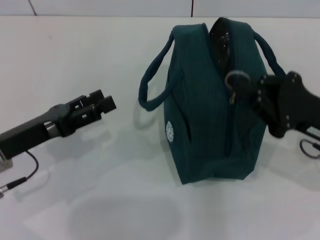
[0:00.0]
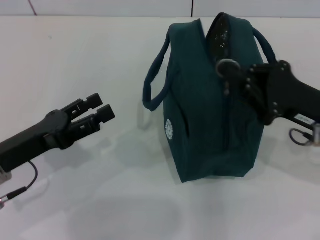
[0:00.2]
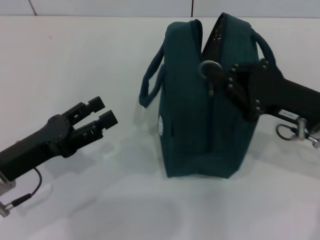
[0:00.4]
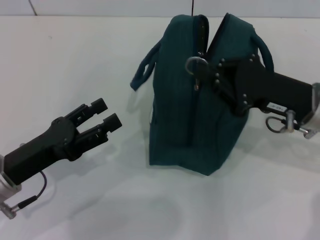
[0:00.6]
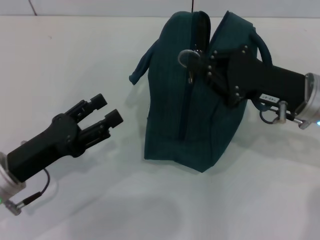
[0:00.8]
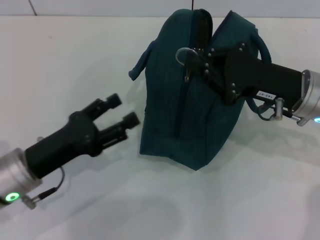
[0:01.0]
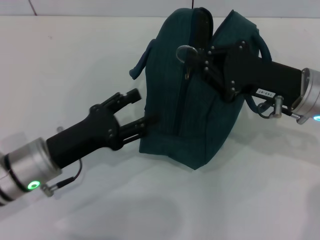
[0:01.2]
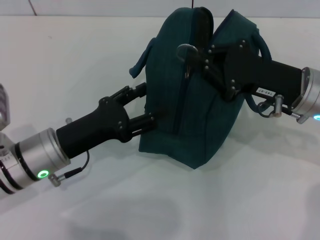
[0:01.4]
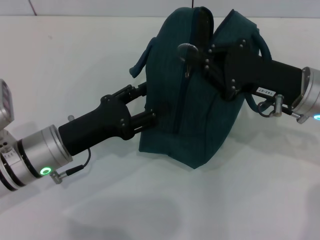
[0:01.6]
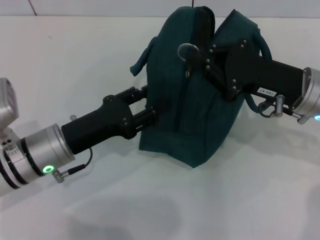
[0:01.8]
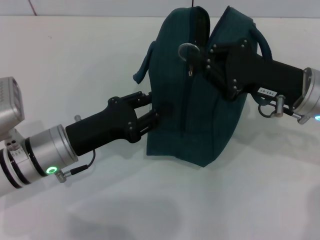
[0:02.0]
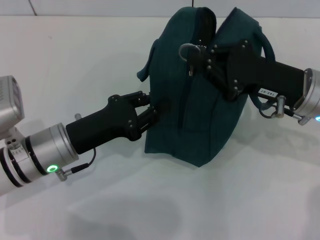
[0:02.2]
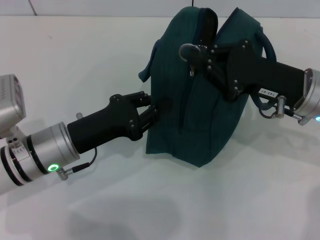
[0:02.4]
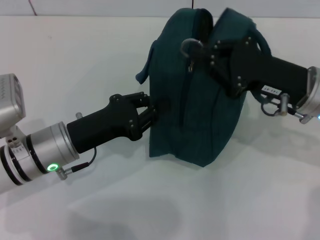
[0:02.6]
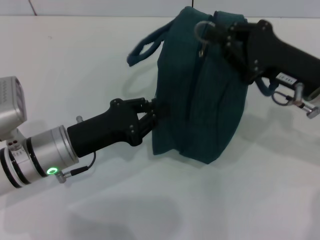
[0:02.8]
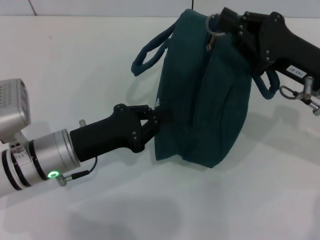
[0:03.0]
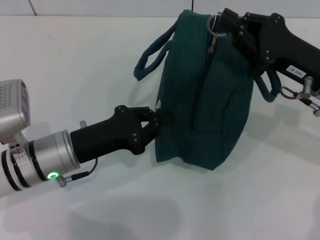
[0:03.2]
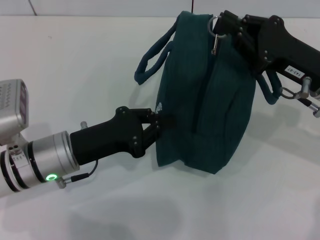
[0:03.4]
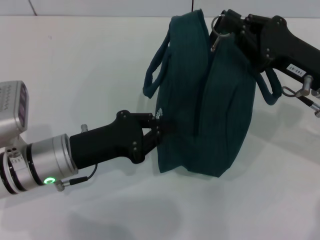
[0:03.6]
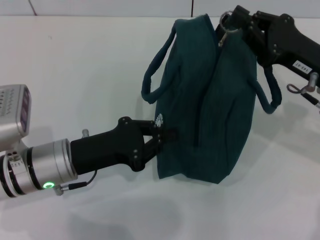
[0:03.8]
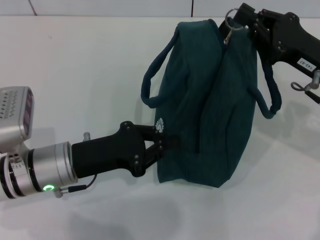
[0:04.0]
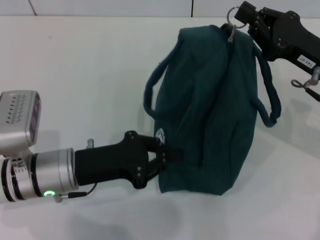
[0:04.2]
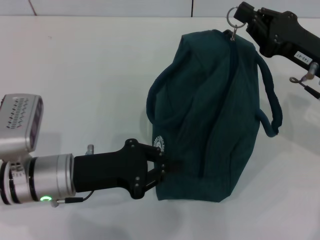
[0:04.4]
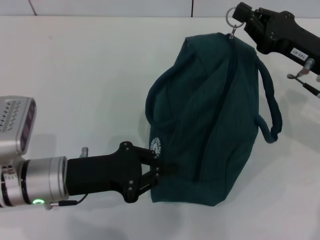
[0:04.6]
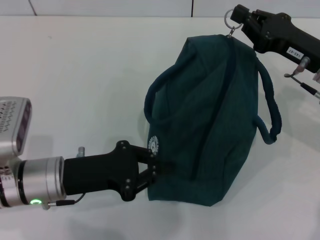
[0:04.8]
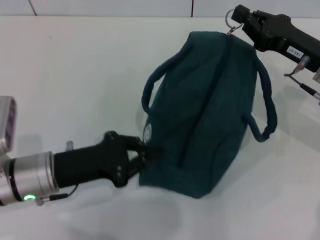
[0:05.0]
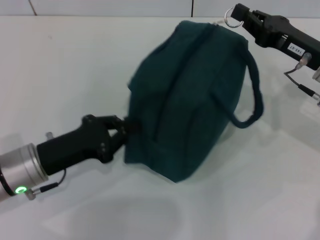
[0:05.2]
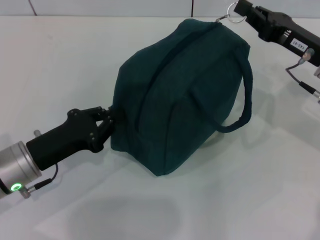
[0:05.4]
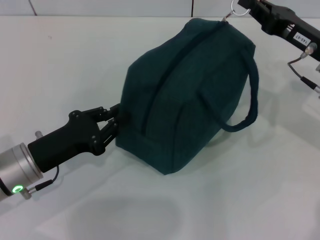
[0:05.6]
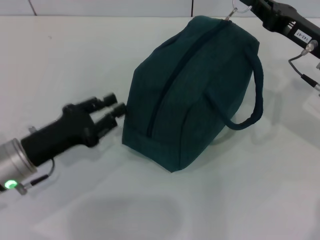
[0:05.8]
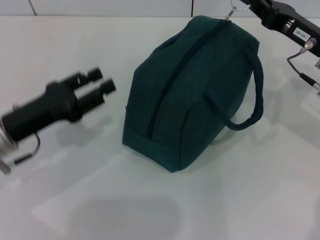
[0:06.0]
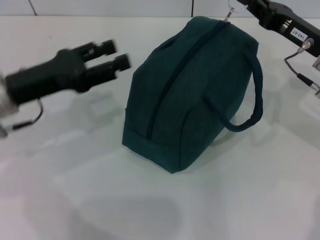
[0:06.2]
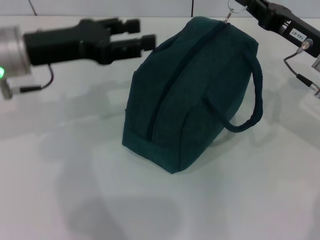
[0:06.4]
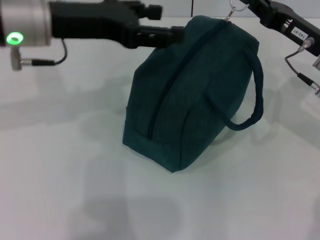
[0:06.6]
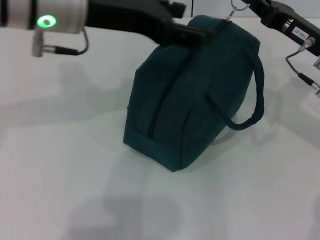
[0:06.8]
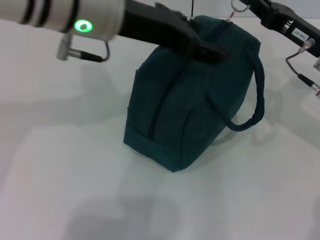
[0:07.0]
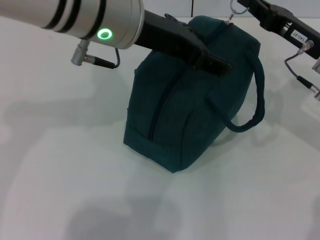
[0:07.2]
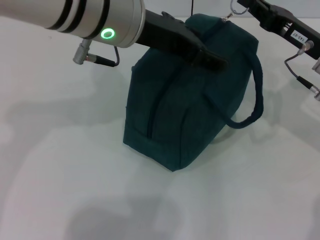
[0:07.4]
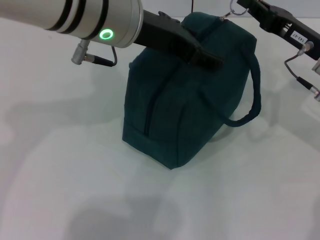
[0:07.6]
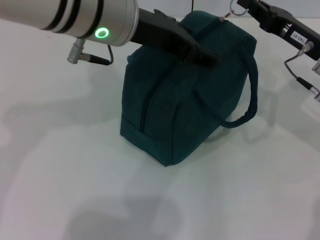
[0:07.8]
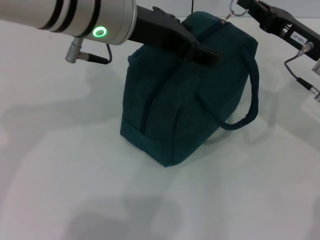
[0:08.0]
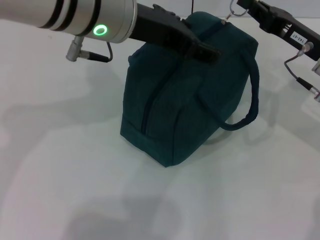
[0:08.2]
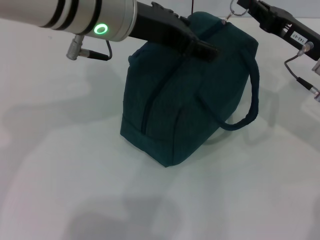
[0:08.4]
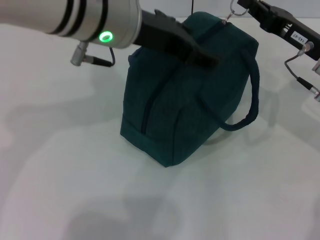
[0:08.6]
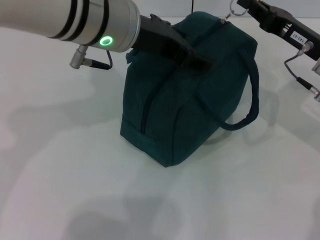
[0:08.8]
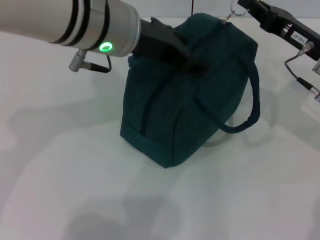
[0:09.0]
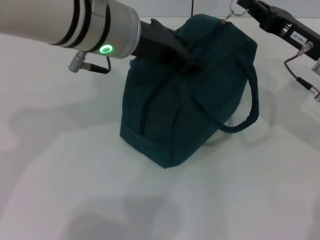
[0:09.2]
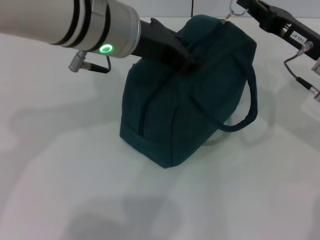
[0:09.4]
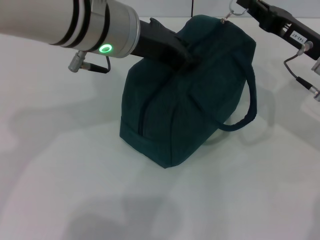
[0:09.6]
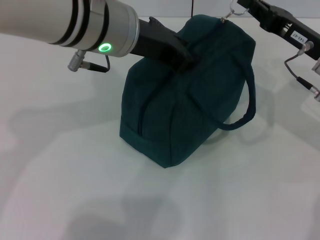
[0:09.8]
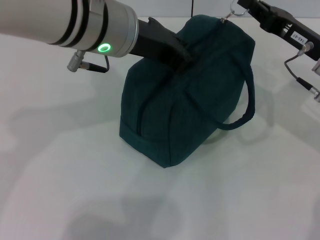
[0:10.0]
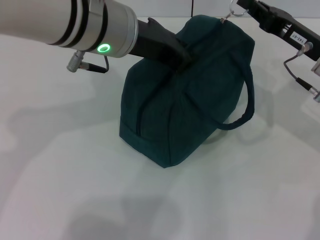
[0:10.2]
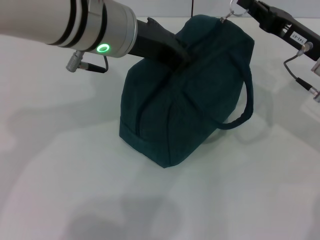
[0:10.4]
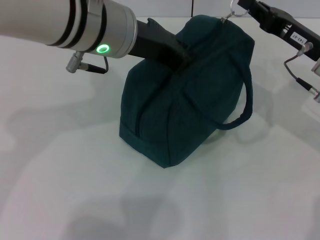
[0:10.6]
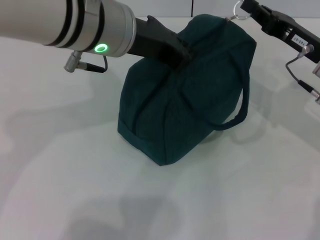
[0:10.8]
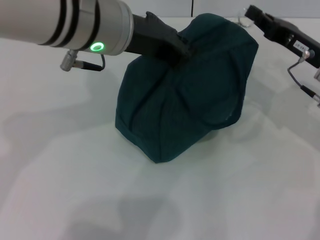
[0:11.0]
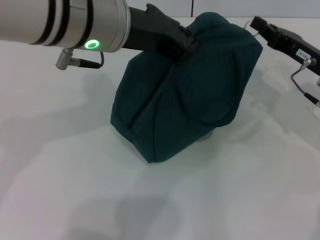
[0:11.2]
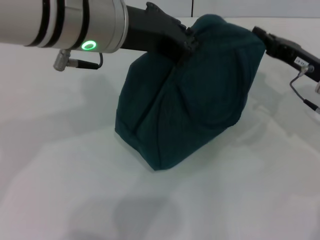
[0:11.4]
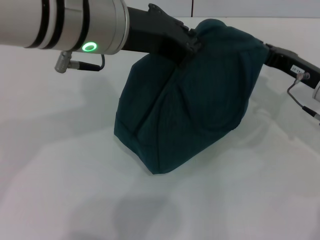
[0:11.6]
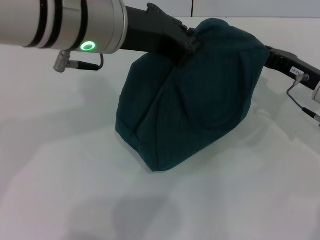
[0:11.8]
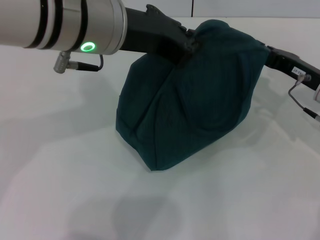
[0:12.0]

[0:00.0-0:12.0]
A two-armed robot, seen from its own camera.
0:00.0 to 0:01.6: The left gripper moves to the right, about 5 cm; the right gripper heads forward and to the left, covering roughly 10 cm.
0:01.6 to 0:03.0: The left gripper closes up.
0:04.4 to 0:06.0: The left gripper travels to the left by roughly 5 cm, and opens.
0:06.0 to 0:07.6: The left gripper is displaced upward, to the right and forward by roughly 25 cm, and opens its fingers.
0:07.6 to 0:09.0: The grippers move only a little.
0:09.0 to 0:10.4: The left gripper closes up.
0:10.4 to 0:12.0: The right gripper moves some 5 cm.

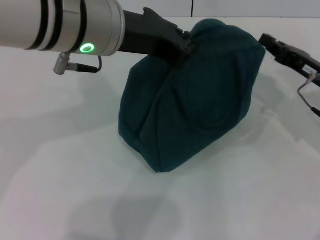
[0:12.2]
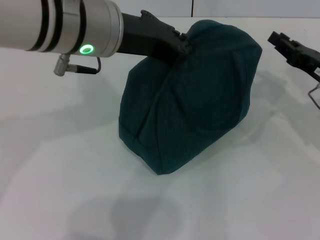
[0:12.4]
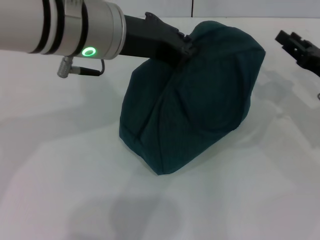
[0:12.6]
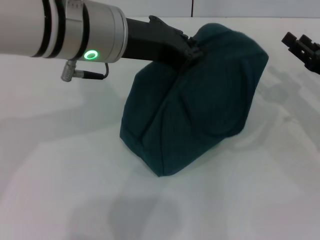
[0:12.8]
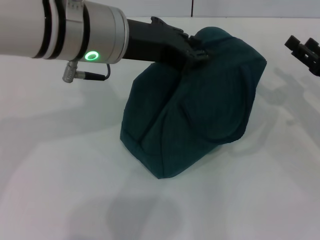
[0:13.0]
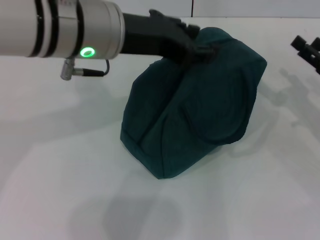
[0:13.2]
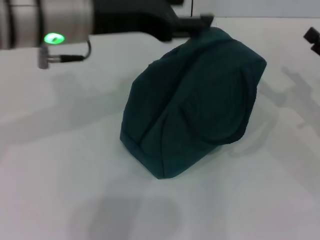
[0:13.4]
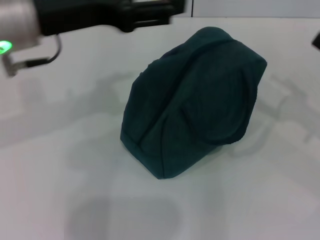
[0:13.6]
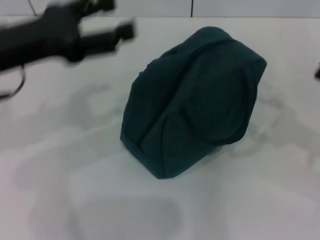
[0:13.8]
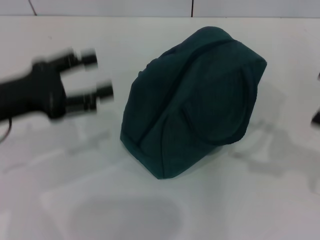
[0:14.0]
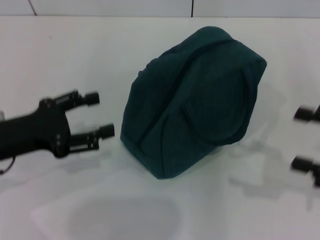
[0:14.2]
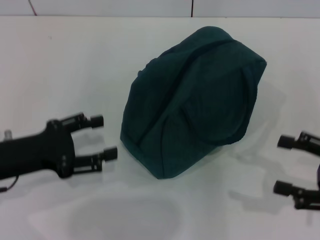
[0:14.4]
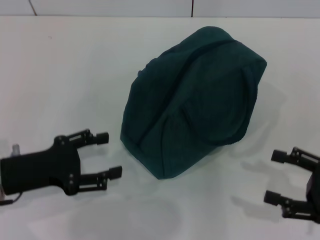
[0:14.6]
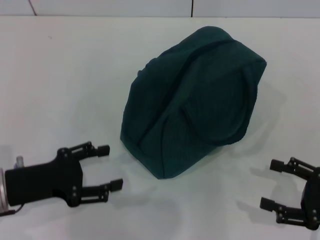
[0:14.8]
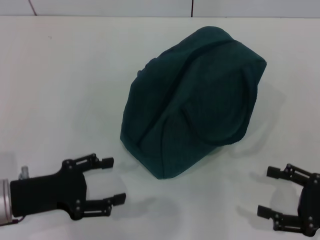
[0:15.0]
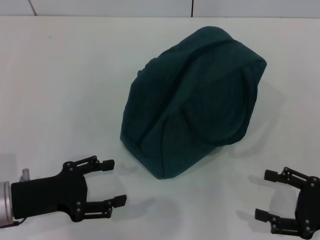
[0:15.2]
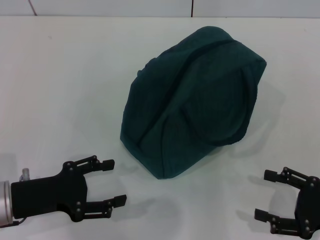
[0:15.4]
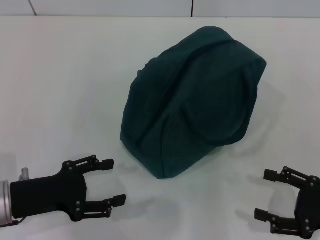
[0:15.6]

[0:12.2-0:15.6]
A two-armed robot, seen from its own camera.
Step, 0:12.4 to 0:13.2: Hold the lunch bag with your left hand.
0:12.2 to 0:13.8: The left gripper is displaced to the left by roughly 15 cm, and opens up, while the right gripper goes roughly 15 cm backward, to the right and upward, and opens its fingers.
0:13.8 to 0:15.6: Both grippers move downward and backward, some 15 cm.

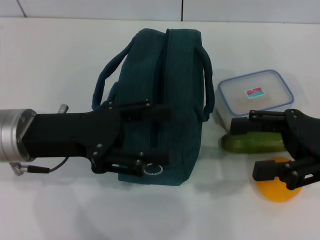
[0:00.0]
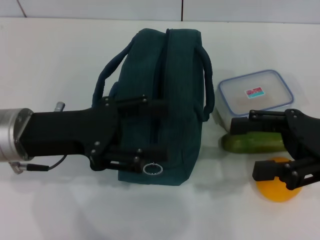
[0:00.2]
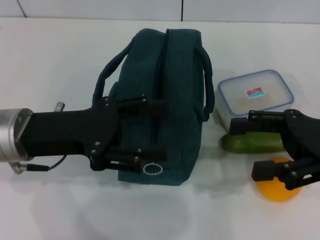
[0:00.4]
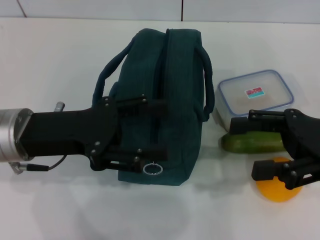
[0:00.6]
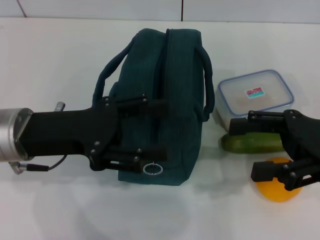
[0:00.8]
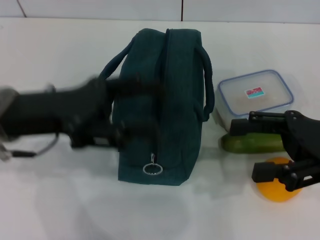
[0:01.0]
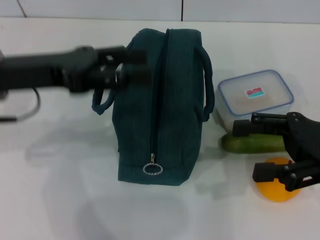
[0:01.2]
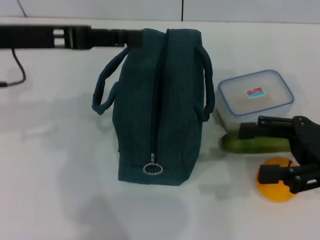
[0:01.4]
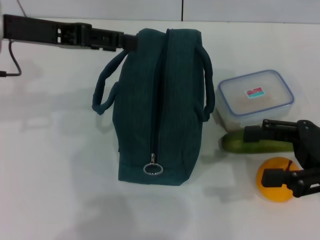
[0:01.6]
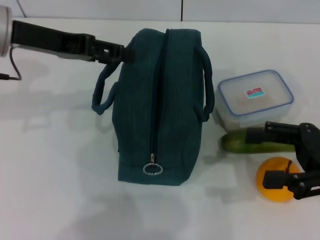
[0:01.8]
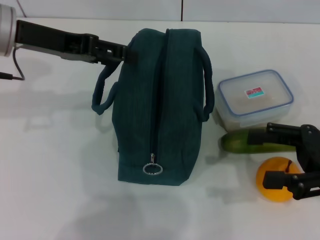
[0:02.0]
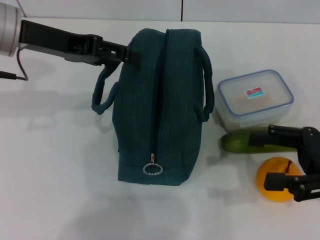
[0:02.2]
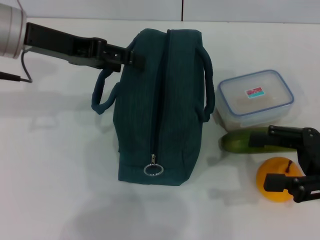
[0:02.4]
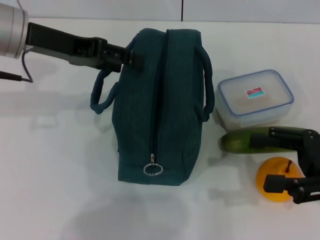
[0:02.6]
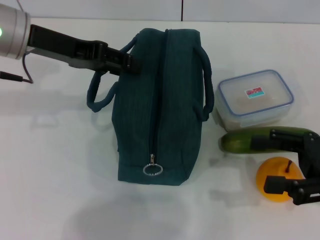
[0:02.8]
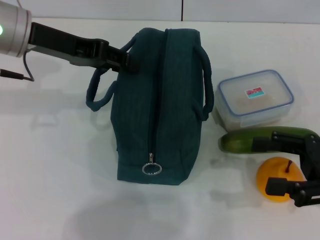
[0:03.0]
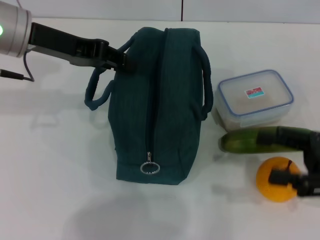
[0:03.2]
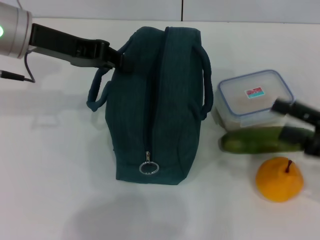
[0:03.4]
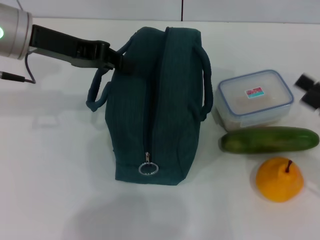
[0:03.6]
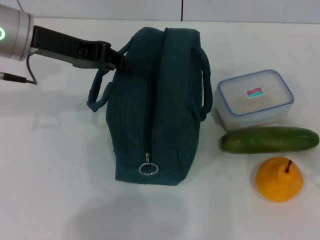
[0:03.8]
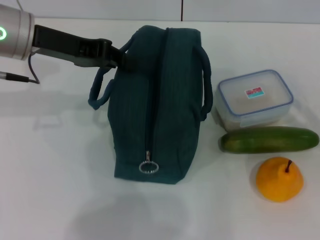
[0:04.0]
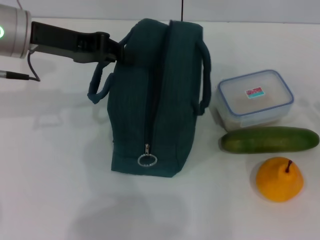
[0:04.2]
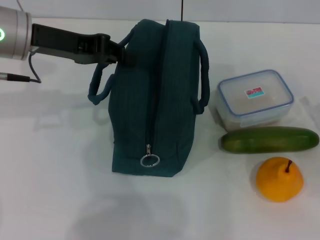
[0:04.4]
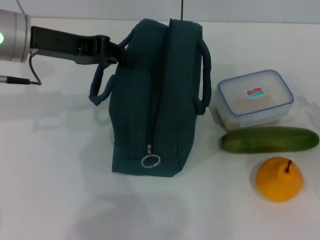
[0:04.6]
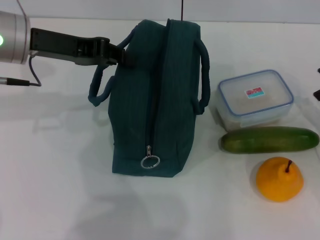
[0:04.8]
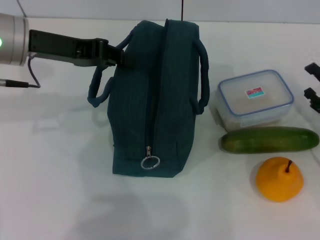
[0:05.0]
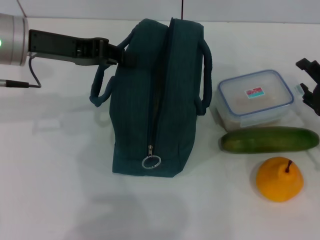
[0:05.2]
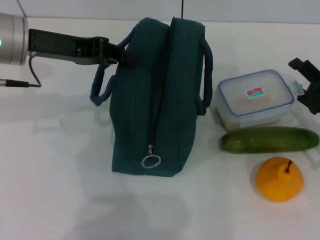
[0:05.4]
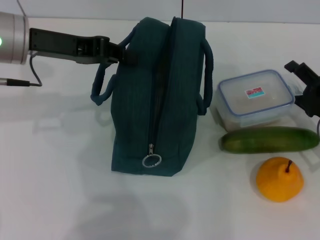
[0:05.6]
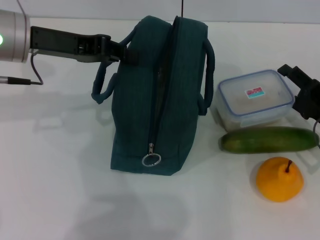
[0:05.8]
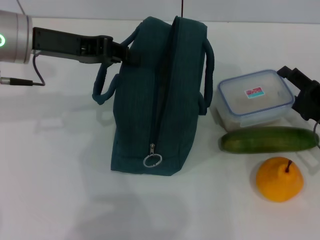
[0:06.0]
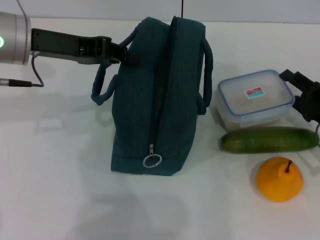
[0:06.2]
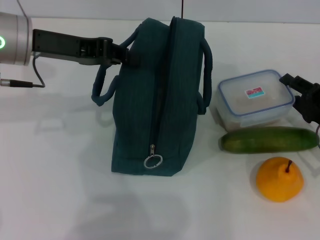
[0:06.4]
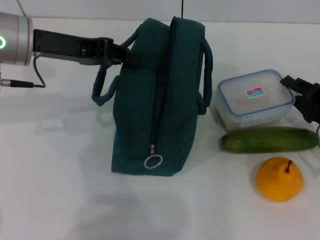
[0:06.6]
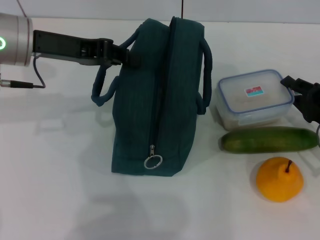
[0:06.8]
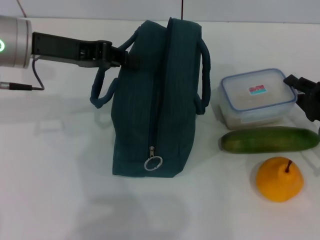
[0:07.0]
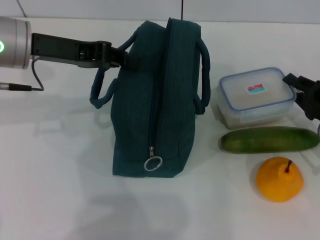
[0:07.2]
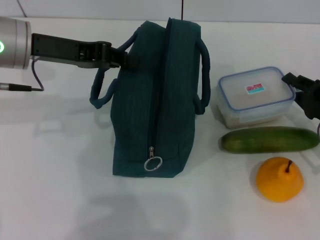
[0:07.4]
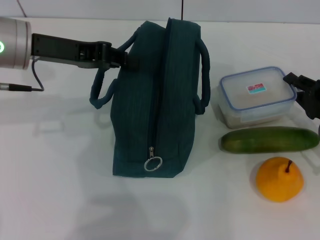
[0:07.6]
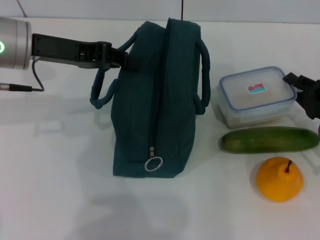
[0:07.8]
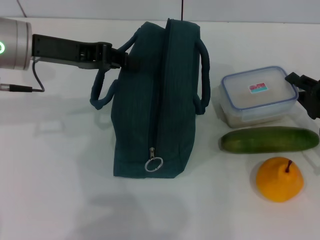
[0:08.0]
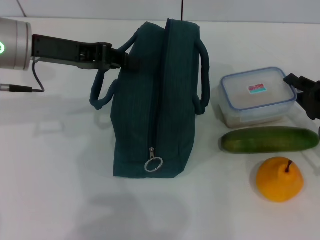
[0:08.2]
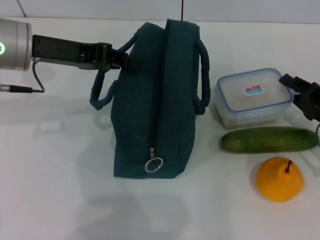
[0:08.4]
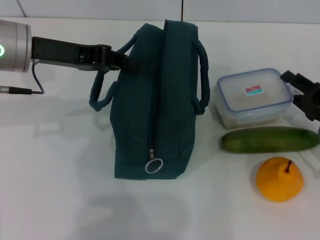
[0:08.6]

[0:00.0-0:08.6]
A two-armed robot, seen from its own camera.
Step, 0:00.0 to 0:03.8: Hold the lunch bag with your left hand.
0:00.0 to 0:01.4: The left gripper heads upward and forward, covering some 10 cm.
0:02.8 to 0:04.4: The left gripper closes, while the right gripper shifts about 10 cm downward and to the right.
0:04.4 to 0:05.8: The right gripper heads to the left and forward, covering approximately 10 cm.
0:05.8 to 0:07.2: The right gripper closes up.
0:07.2 to 0:08.6: Neither gripper changes place.
